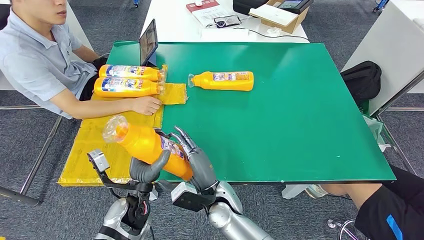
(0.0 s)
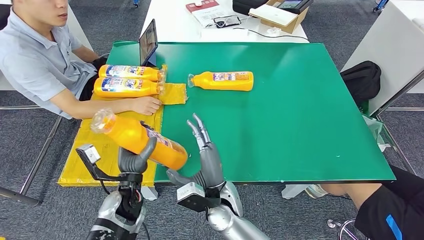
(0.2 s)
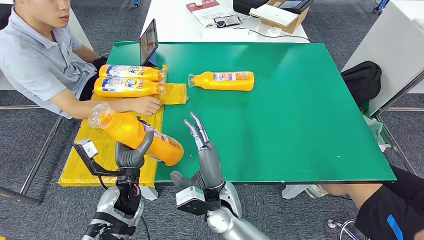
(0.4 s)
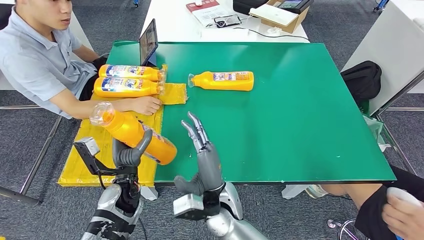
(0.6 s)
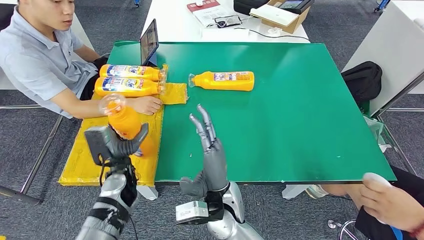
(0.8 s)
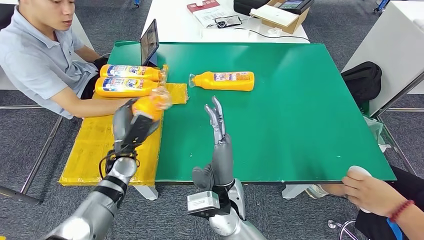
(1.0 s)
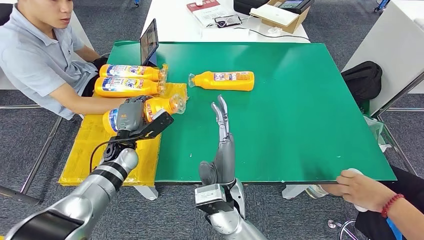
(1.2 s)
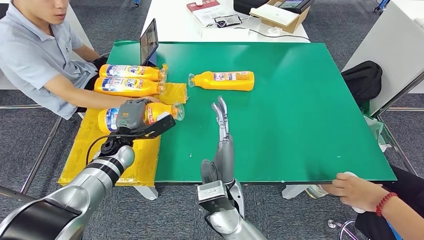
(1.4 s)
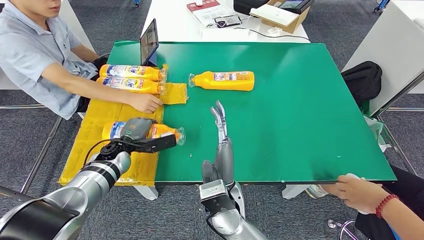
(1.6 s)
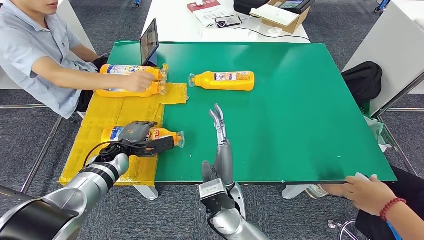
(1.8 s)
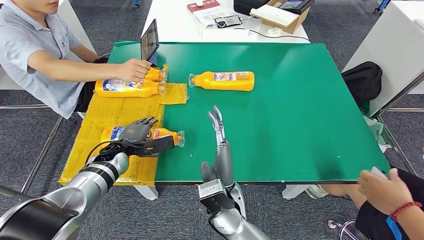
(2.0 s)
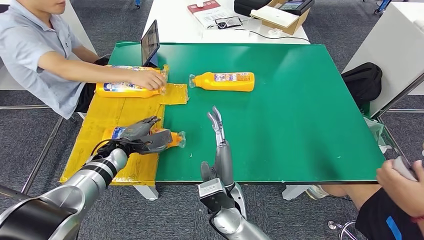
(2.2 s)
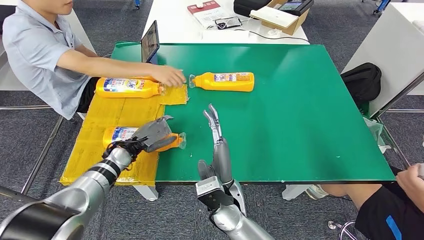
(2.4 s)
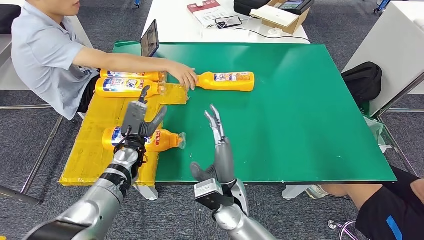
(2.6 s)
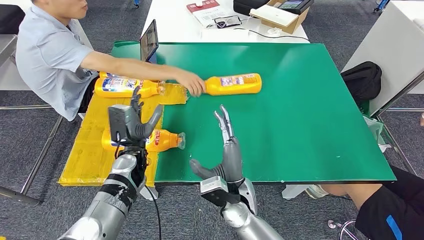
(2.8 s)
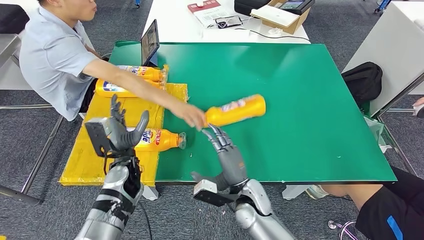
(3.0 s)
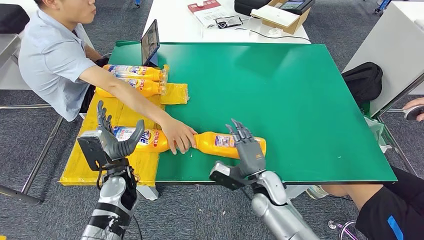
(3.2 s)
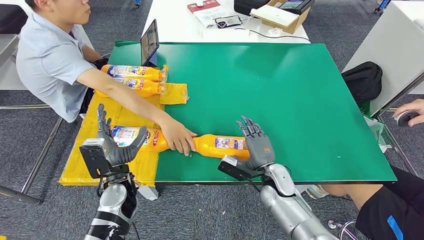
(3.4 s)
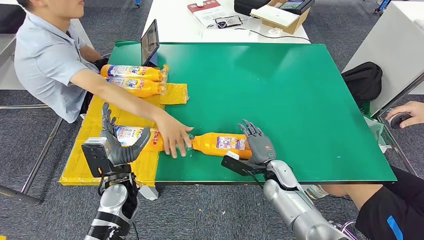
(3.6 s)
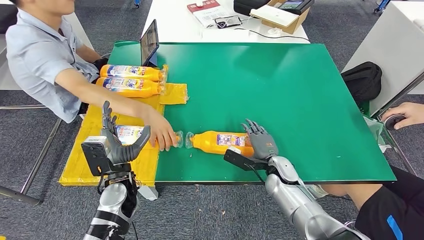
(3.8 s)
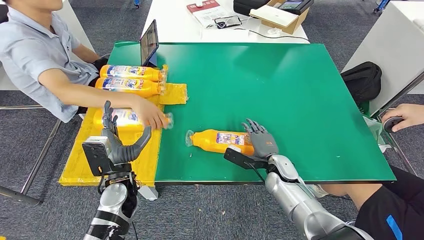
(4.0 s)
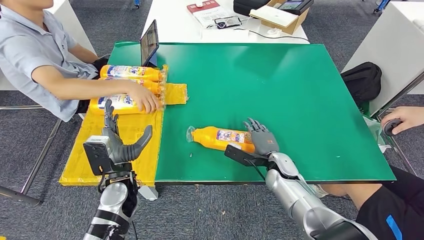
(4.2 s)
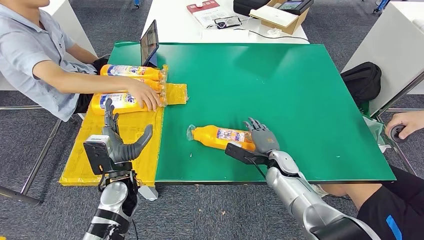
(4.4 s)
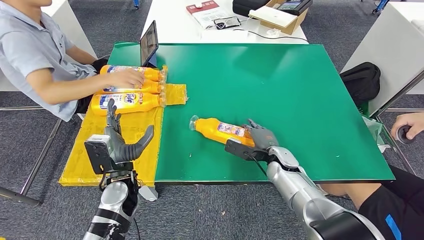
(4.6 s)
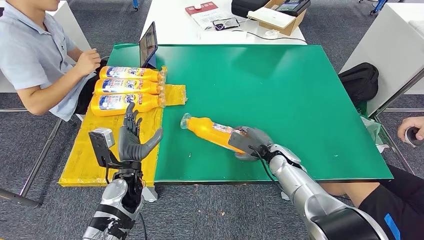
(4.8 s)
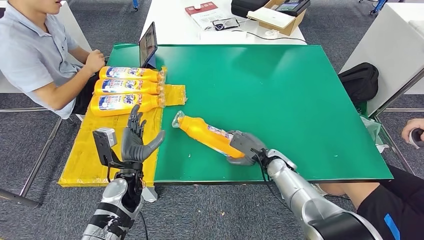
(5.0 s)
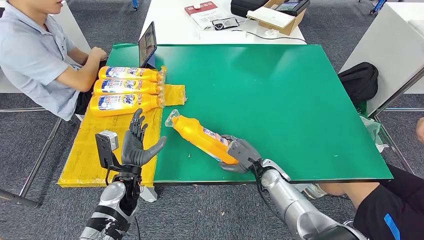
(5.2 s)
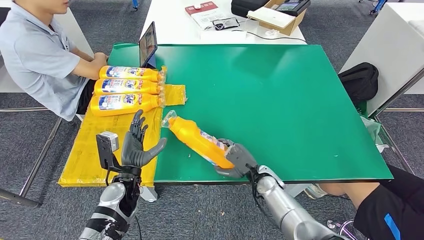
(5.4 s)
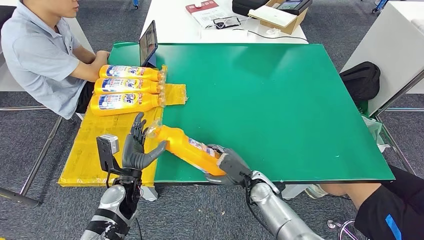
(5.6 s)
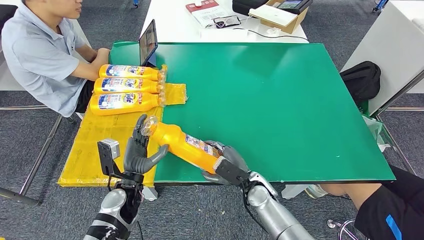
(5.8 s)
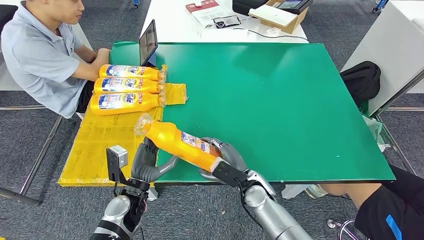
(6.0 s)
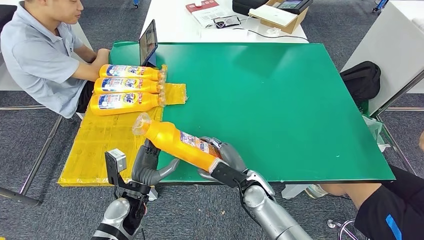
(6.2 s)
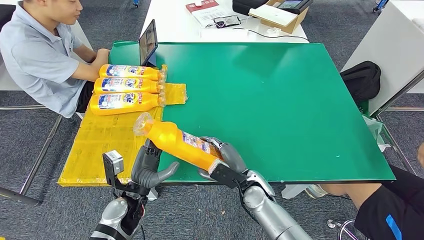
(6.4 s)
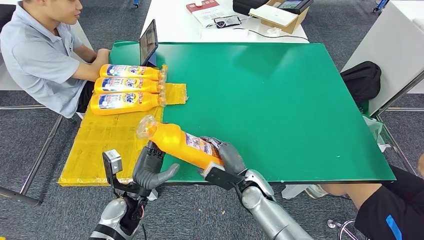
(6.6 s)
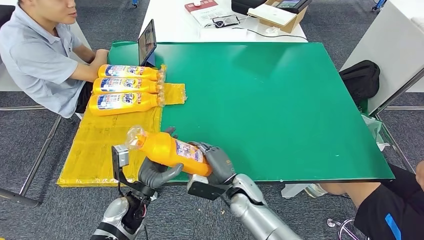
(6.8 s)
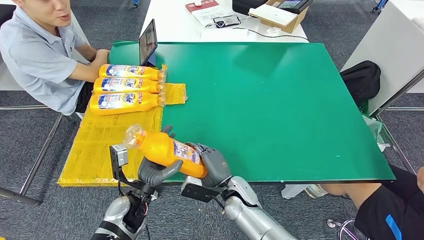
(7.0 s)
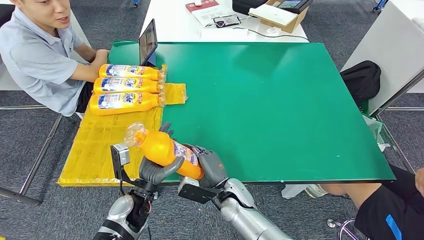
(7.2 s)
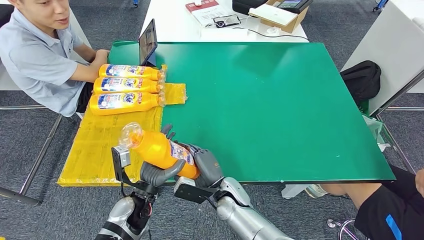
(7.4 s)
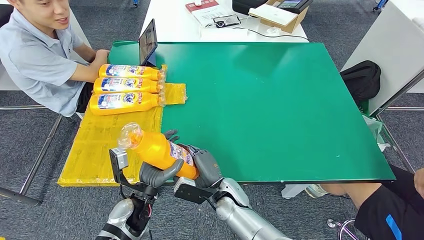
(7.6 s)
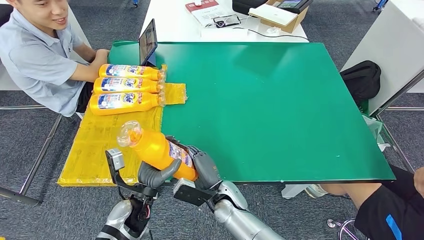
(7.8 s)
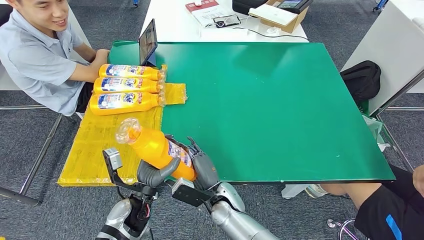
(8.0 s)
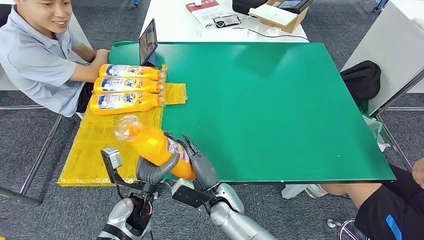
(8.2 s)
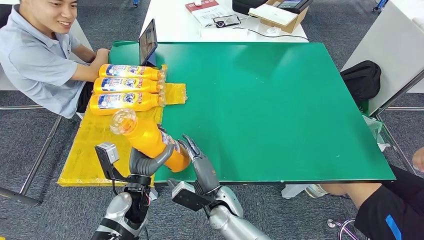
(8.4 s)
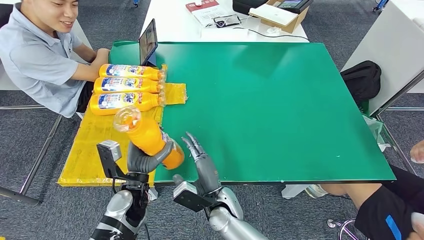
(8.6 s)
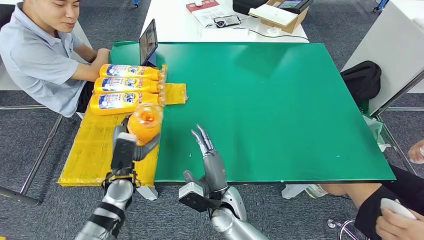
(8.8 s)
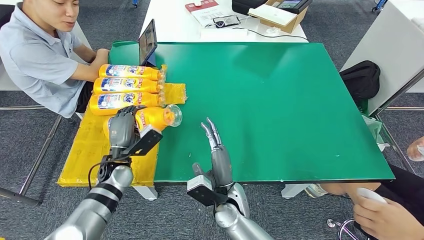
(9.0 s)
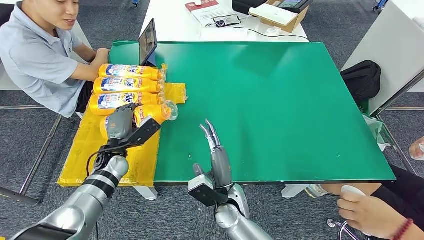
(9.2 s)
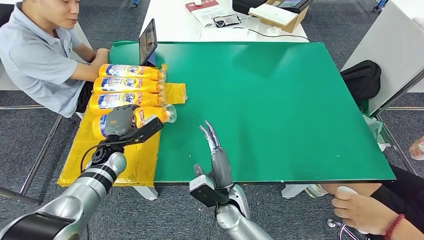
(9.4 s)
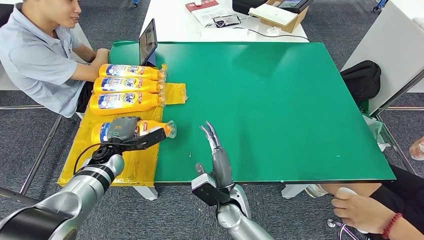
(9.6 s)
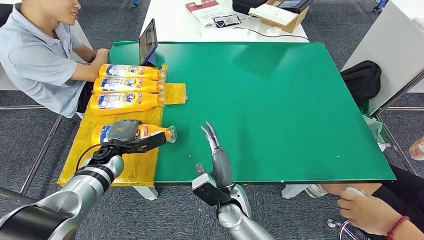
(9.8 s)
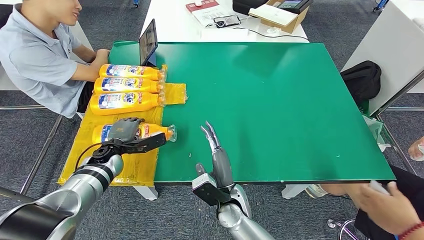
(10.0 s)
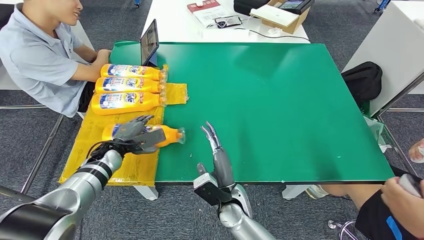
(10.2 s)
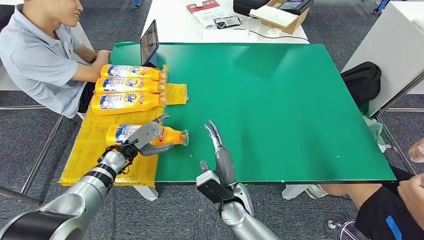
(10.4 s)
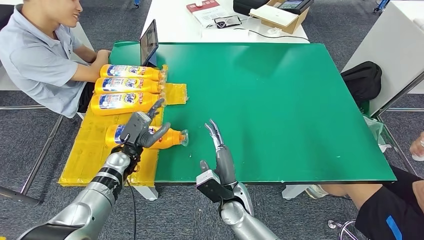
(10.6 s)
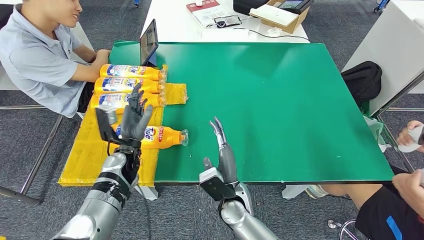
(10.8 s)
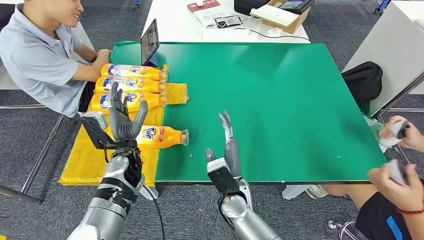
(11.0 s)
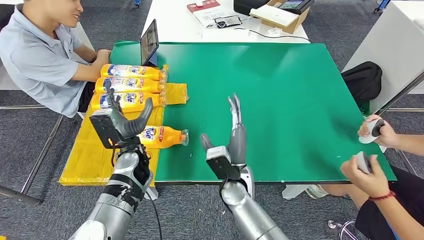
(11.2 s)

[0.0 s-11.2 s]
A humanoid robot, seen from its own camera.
Step, 0.0 to 2.6 s: Flip the fast-moving consumer goods bottle to the front side.
Step, 4.8 to 7.6 s: Pick up the fast-moving consumer goods bottle from the table.
Step, 7.8 to 11.0 s: Flip the fast-moving consumer goods bottle to the front side.
6.4 to 8.0 s: The right hand goes approximately 10 cm to the left.
8.0 to 9.6 s: The left hand travels forward and to the left by approximately 20 cm.
